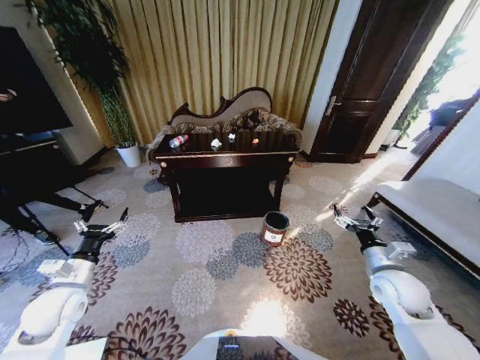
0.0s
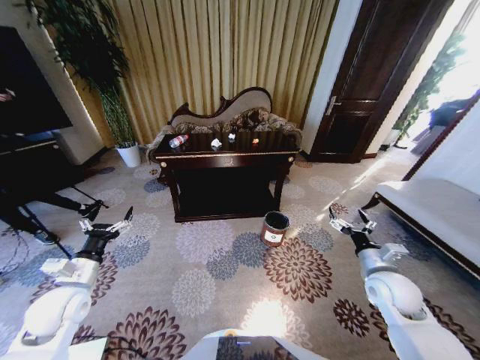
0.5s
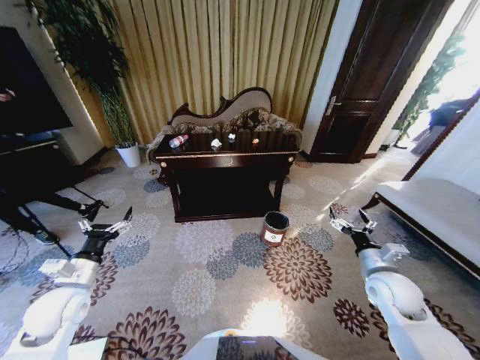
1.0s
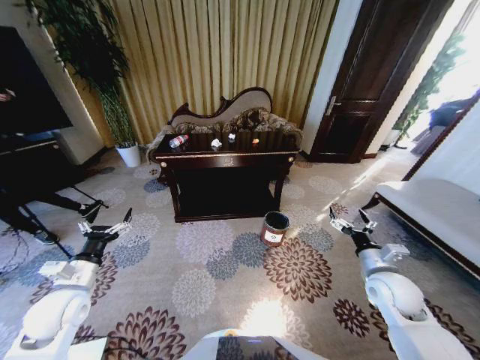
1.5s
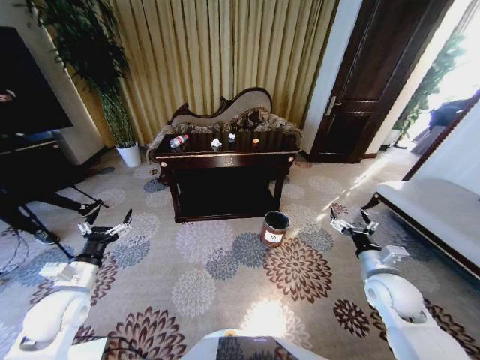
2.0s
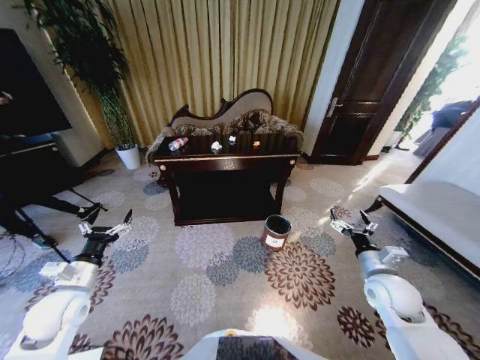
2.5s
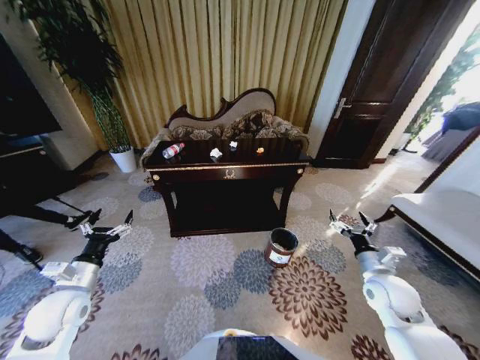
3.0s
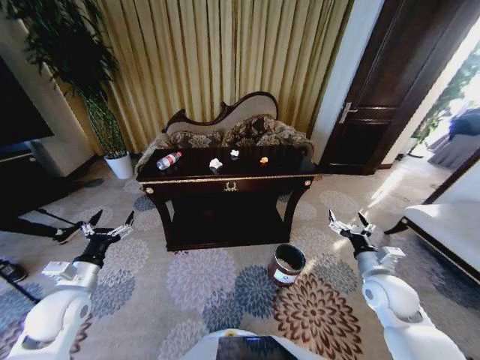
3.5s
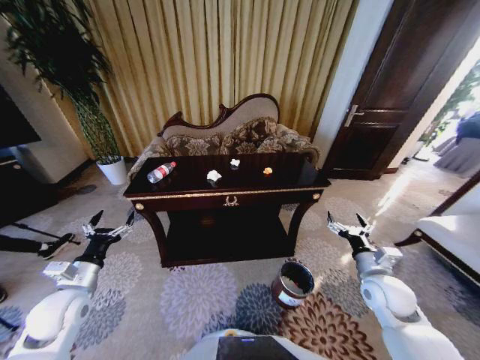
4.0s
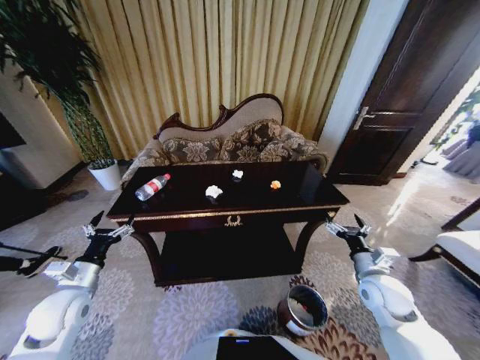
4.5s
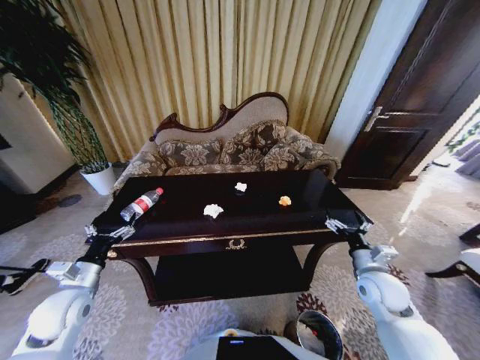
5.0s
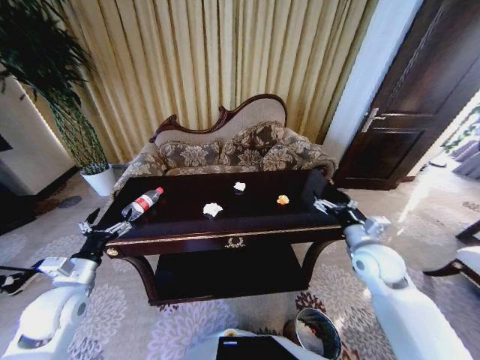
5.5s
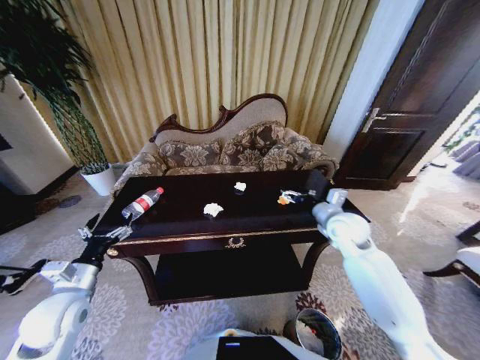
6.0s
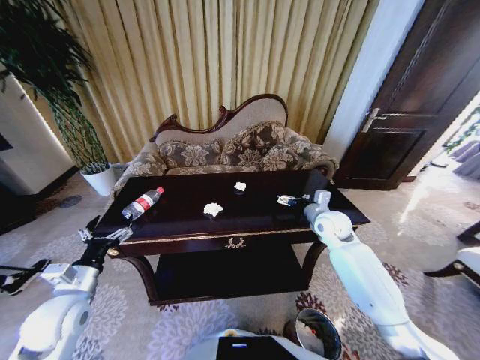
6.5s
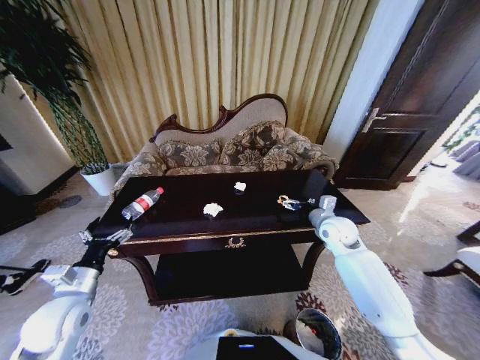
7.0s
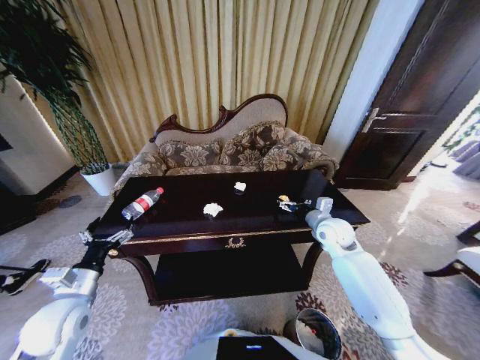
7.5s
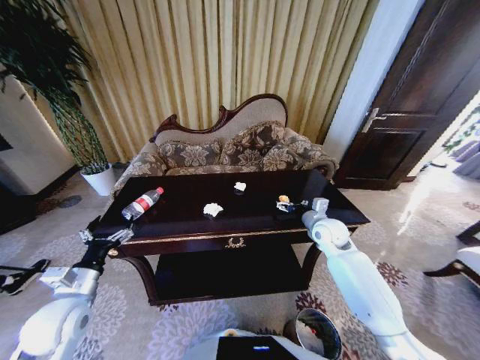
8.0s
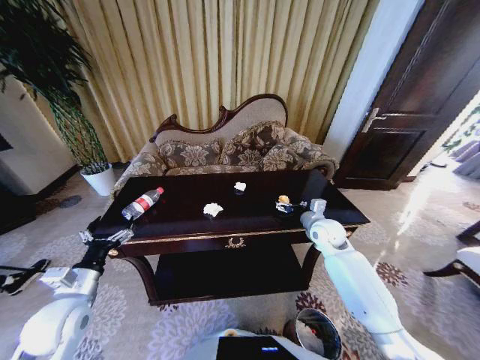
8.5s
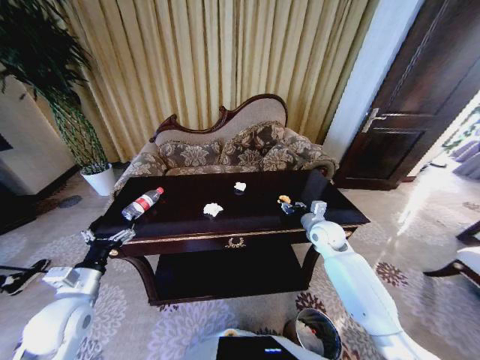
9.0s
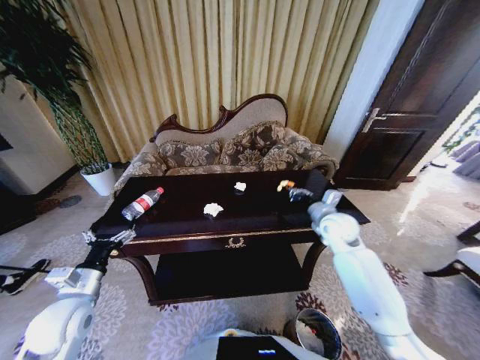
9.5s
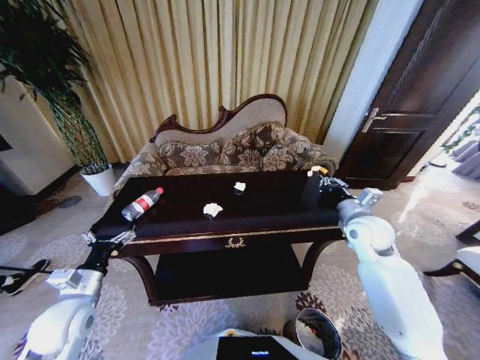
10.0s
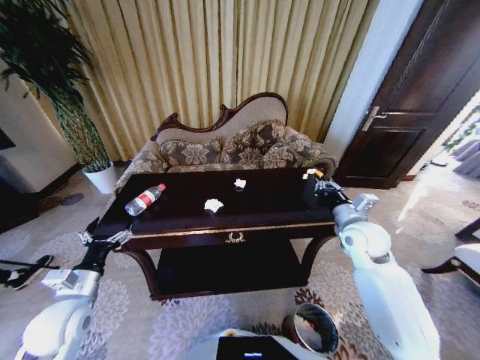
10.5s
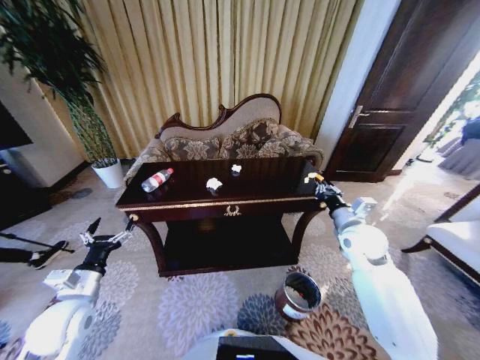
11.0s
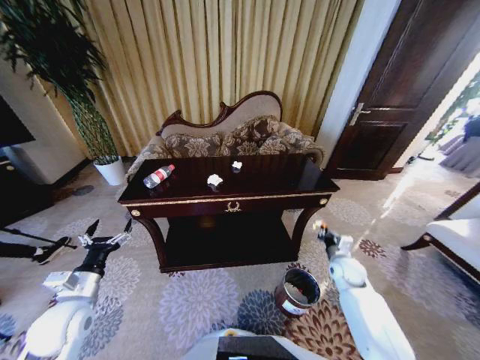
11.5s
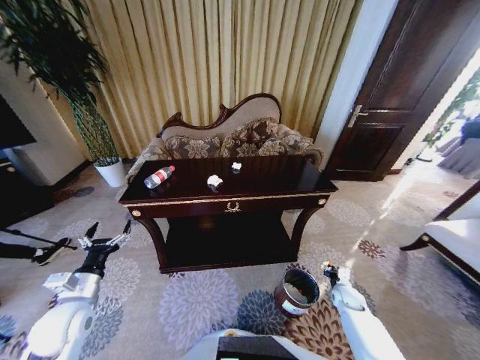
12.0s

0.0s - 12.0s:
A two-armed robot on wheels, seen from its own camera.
Task of the whole recording: Move to the front of the table and place the trash on the table into the trash bin.
4.0s - 6.0s: The right gripper shifts roughly 15 cm forward, upward and to the left.
6.0s - 8.0s: The right gripper goes about 5 cm downward.
8.0s - 10.0s: The right gripper moves upward and to the right, about 10 cm, and closes its fingers.
10.0s - 12.0s: The right gripper moves downward, roughly 35 cm.

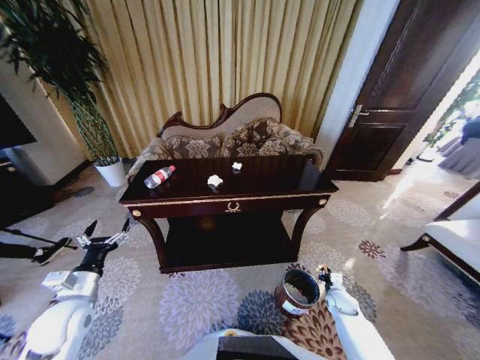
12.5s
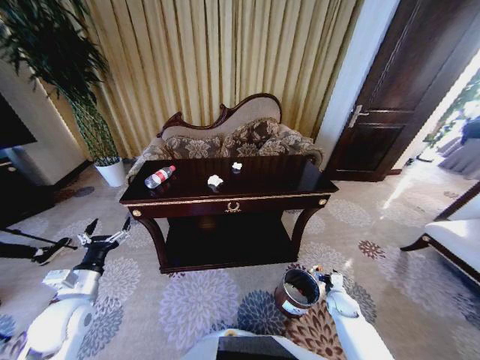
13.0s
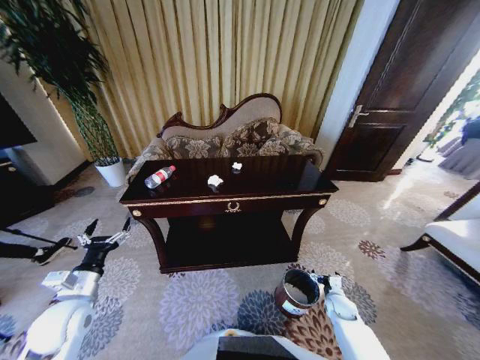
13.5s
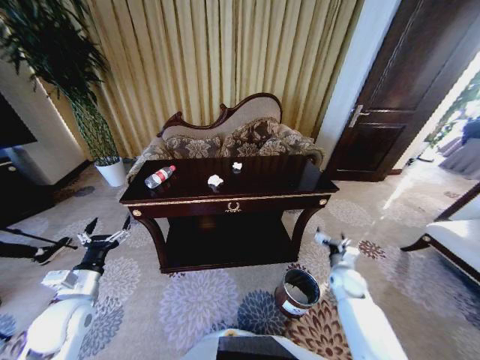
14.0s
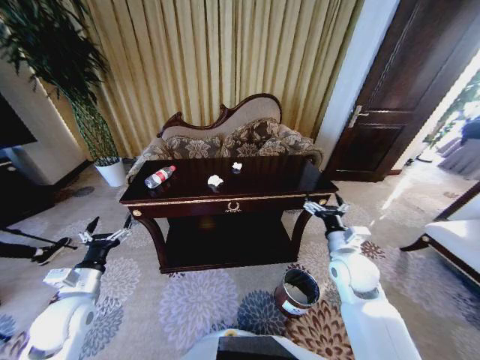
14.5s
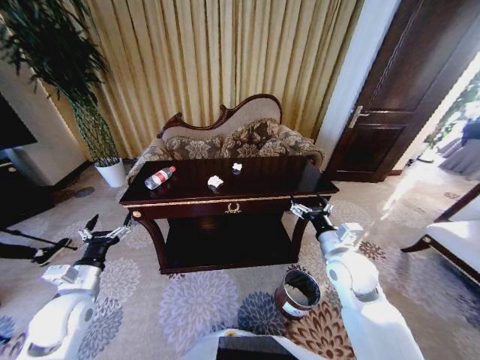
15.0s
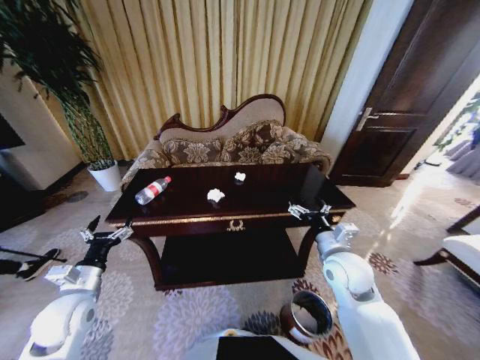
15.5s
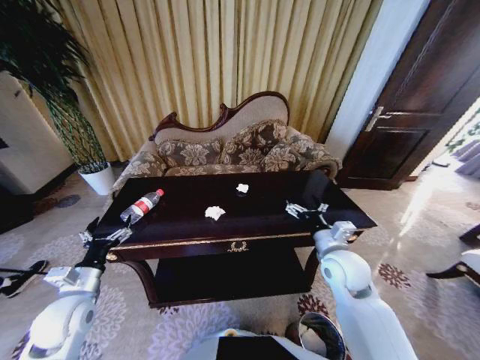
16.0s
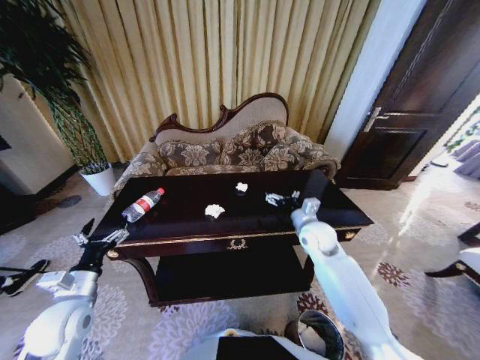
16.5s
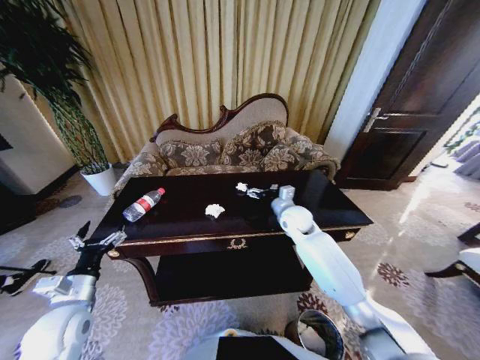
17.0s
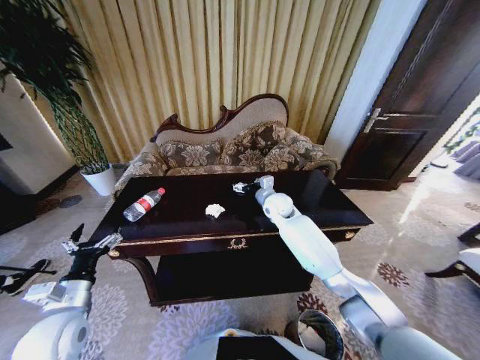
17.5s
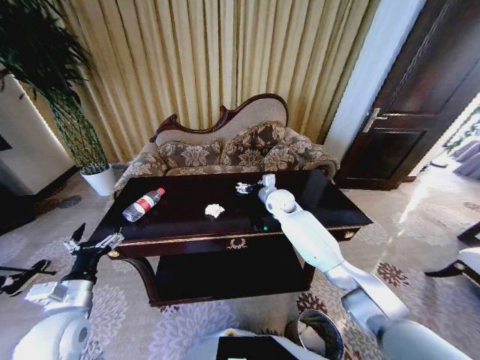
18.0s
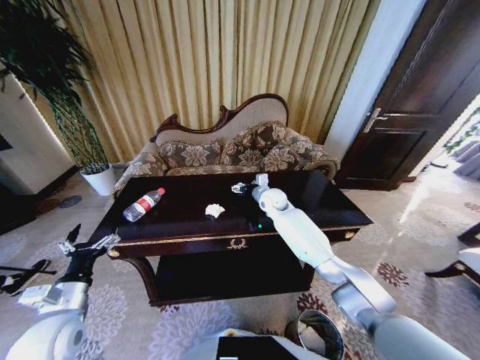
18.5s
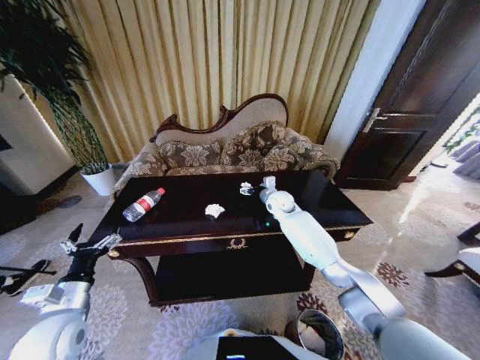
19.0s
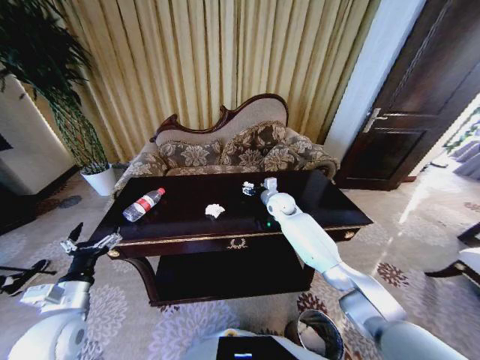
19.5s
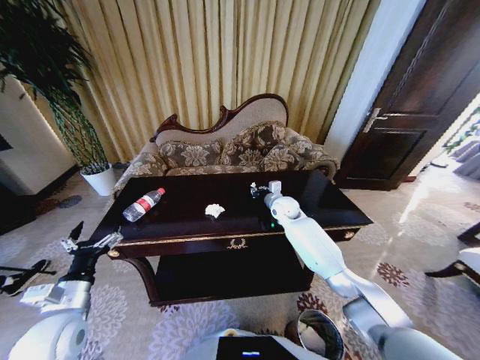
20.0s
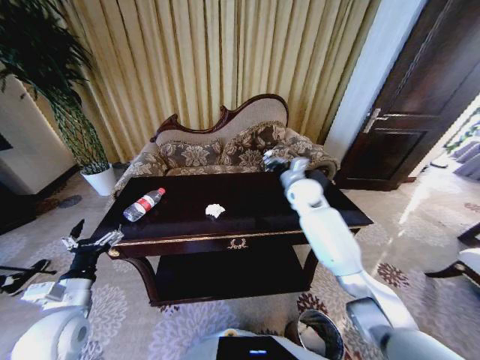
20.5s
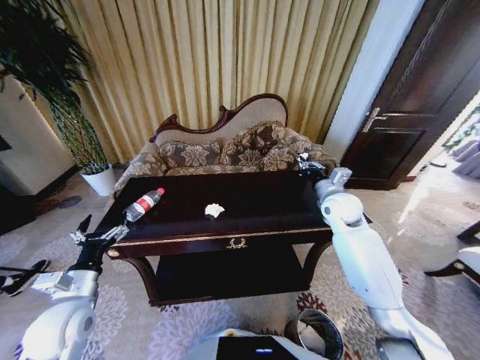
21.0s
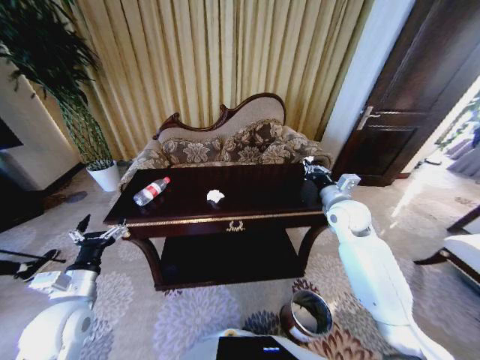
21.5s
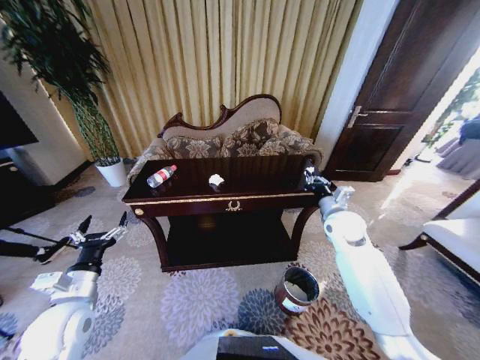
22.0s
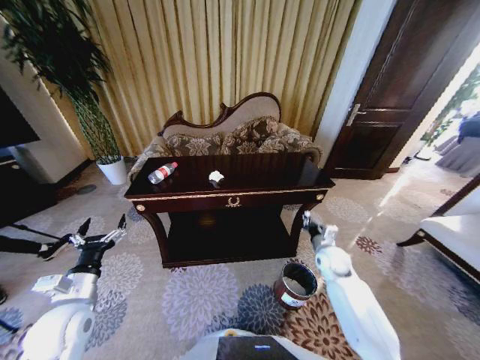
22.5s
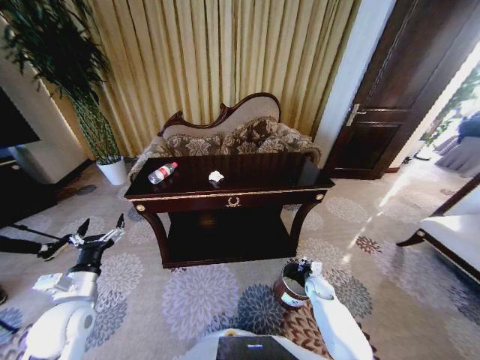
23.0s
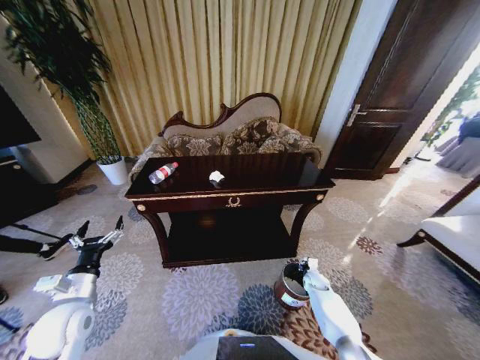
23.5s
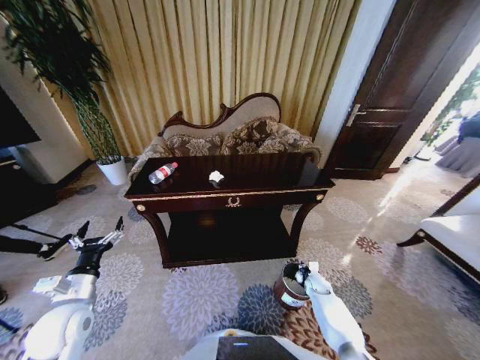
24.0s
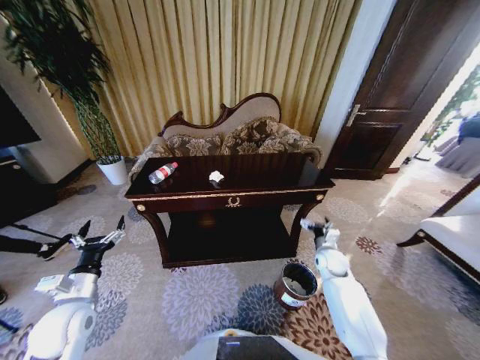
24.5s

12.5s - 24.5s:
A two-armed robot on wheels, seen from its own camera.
Task of the whole recording: Move to the front of the table and place the trash on the table into the trash bin.
12.5s - 14.5s: The right gripper shifts some 30 cm upward, and opens up.
14.5s - 16.5s: The right gripper travels forward by roughly 10 cm.
16.5s - 18.5s: The right gripper goes about 20 cm forward and to the left.
18.5s - 20.5s: The right gripper is displaced to the right and upward by approximately 10 cm, and closes up.
20.5s - 22.5s: The right gripper shifts some 25 cm downward, backward and to the right.
22.5s - 24.5s: The right gripper travels downward and back again, approximately 20 cm each way, and opens its fingers.

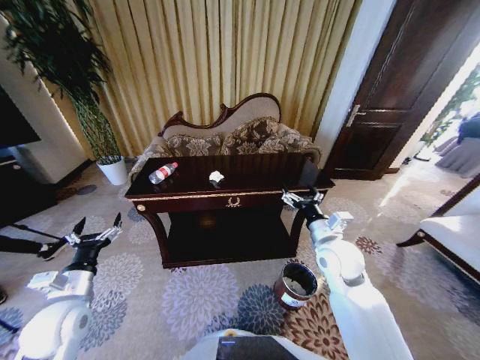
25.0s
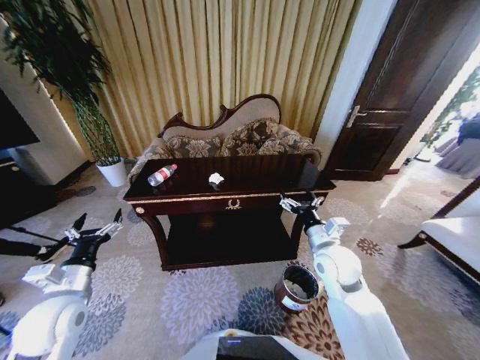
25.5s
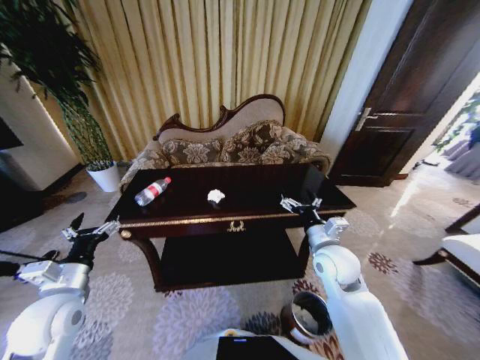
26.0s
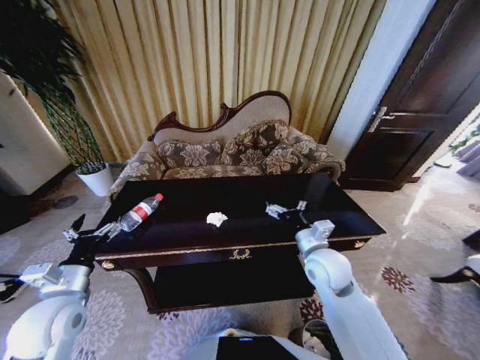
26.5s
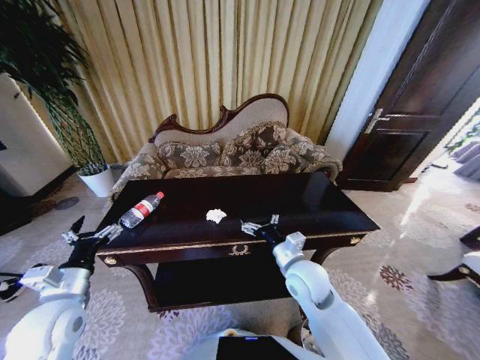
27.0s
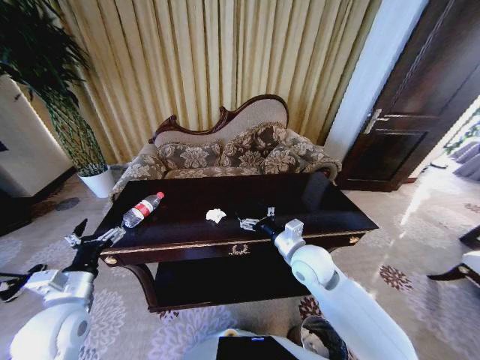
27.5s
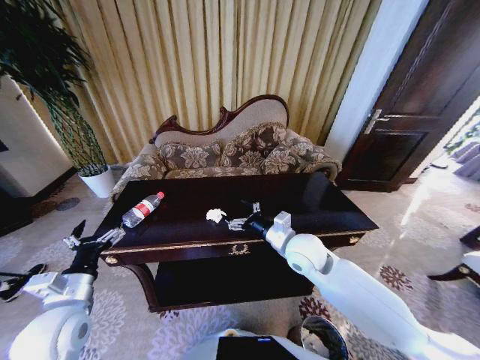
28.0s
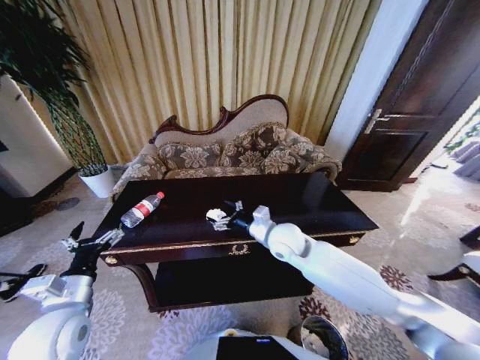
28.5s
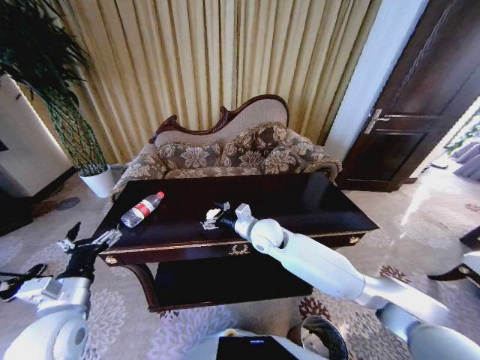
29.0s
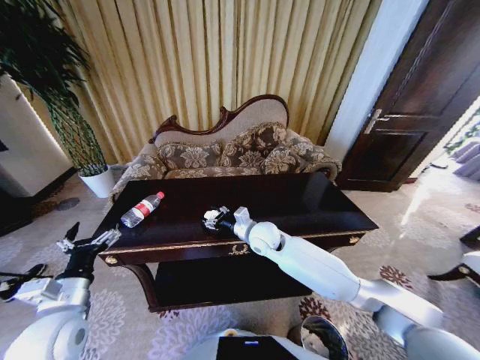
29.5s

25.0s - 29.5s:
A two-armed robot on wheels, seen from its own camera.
Task of the whole recording: Move to the front of the table and place the trash on the table into the trash bin.
25.0s - 27.0s: The right gripper heads to the left, covering about 10 cm.
27.0s - 29.5s: The right gripper moves forward and to the left, roughly 15 cm.
